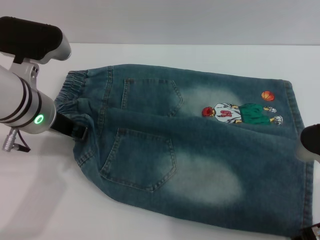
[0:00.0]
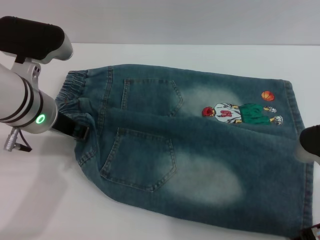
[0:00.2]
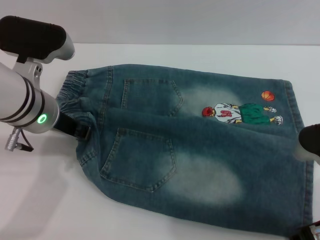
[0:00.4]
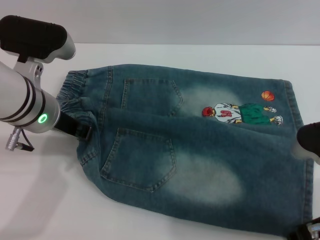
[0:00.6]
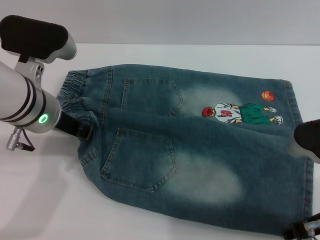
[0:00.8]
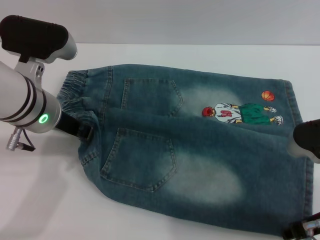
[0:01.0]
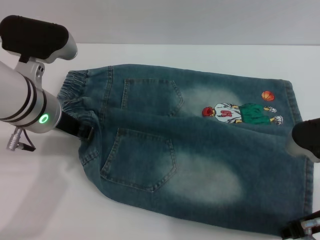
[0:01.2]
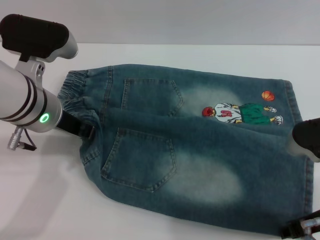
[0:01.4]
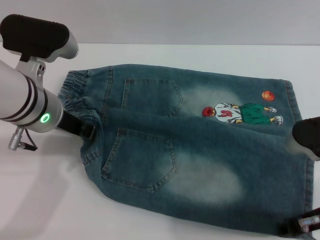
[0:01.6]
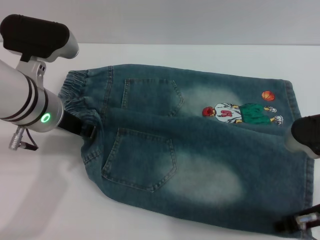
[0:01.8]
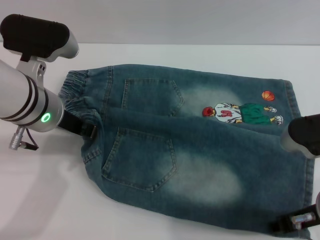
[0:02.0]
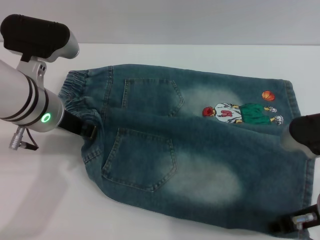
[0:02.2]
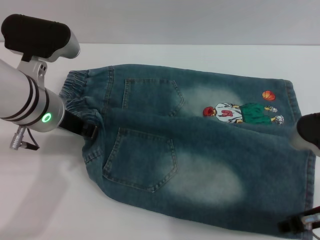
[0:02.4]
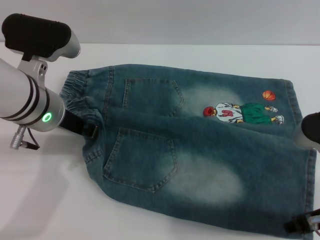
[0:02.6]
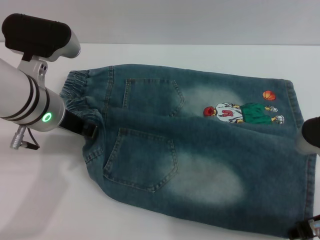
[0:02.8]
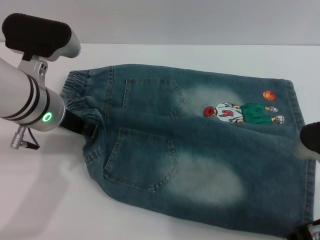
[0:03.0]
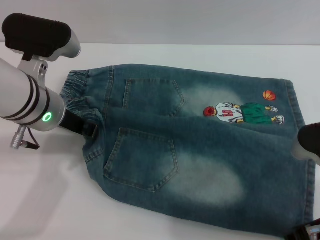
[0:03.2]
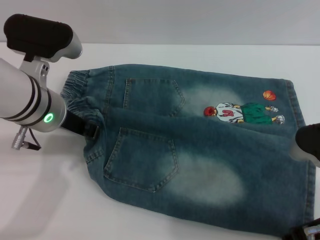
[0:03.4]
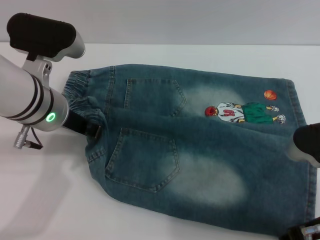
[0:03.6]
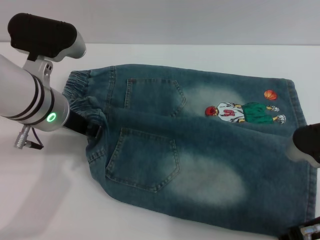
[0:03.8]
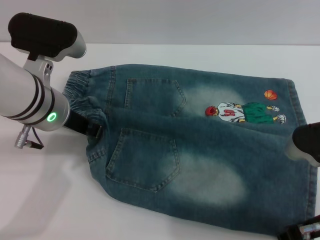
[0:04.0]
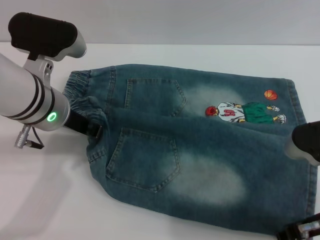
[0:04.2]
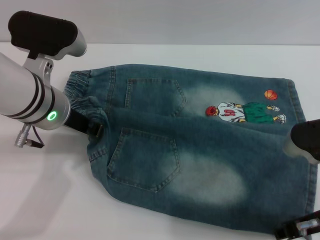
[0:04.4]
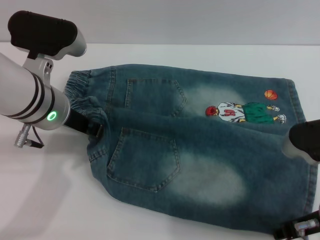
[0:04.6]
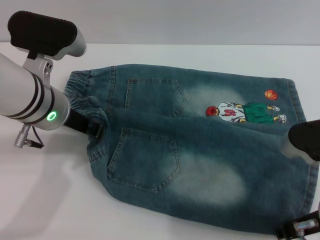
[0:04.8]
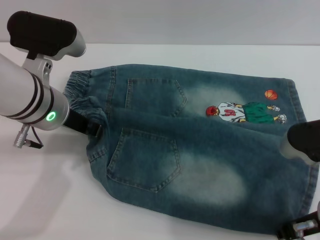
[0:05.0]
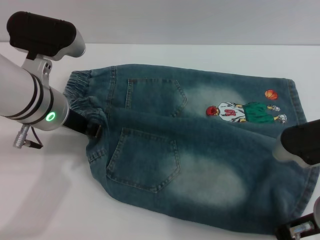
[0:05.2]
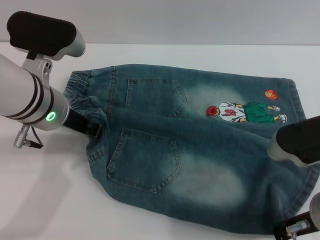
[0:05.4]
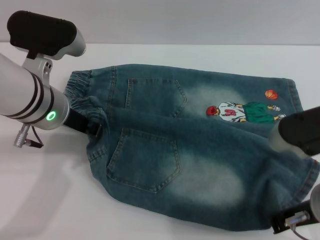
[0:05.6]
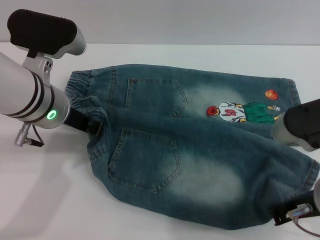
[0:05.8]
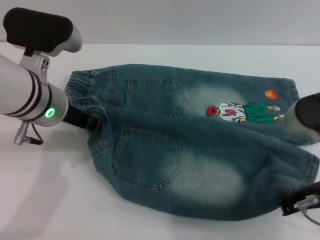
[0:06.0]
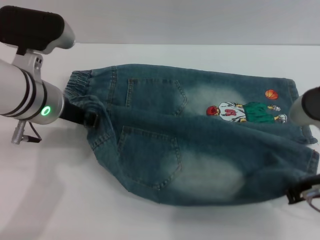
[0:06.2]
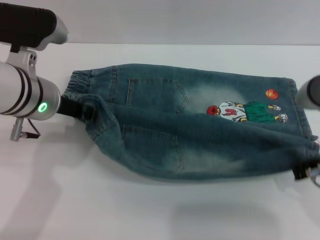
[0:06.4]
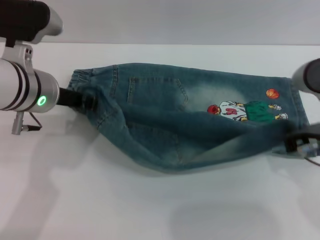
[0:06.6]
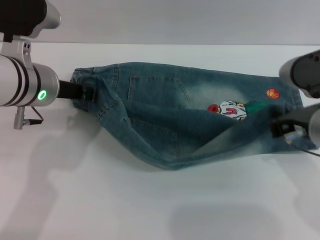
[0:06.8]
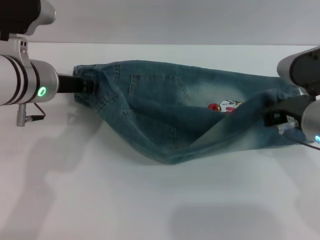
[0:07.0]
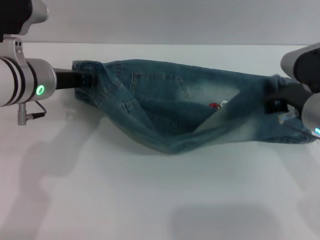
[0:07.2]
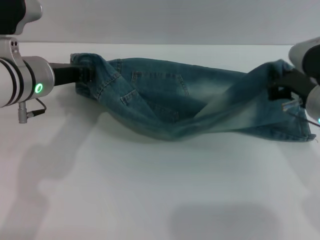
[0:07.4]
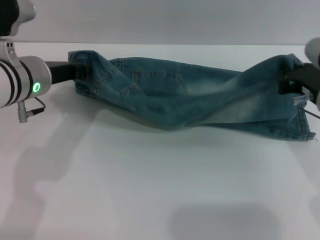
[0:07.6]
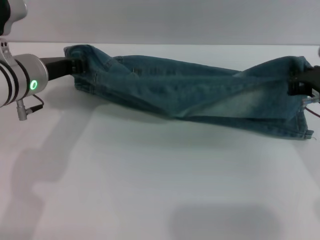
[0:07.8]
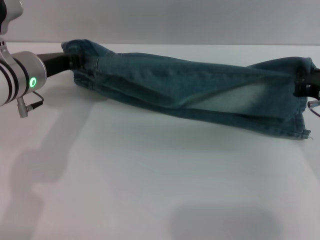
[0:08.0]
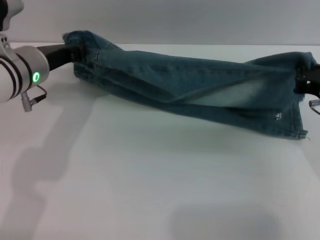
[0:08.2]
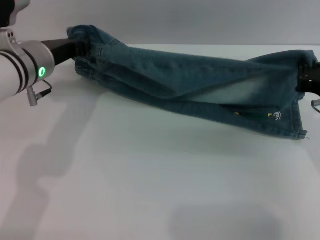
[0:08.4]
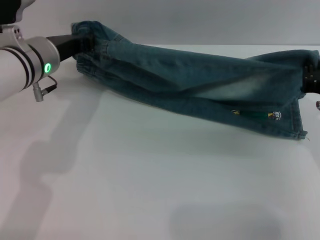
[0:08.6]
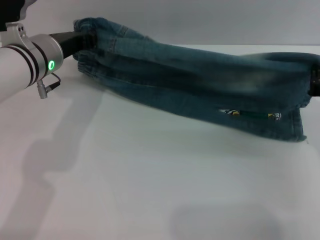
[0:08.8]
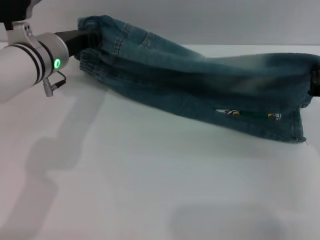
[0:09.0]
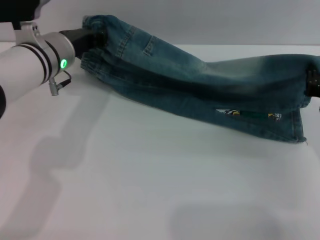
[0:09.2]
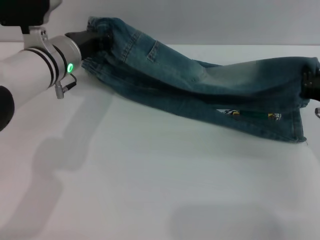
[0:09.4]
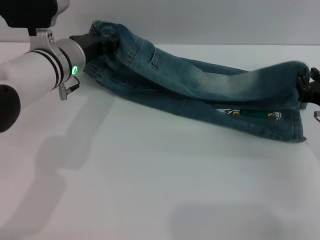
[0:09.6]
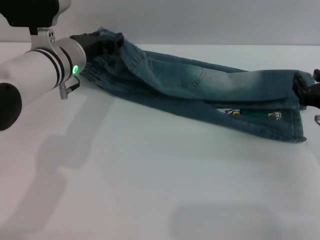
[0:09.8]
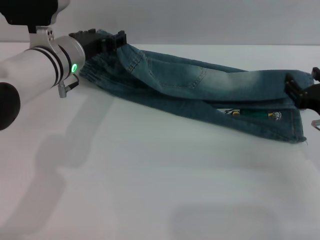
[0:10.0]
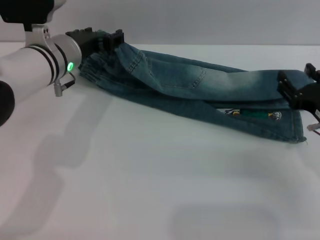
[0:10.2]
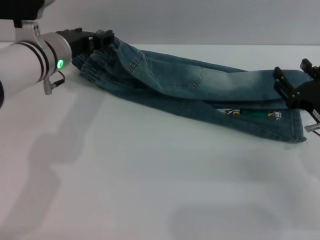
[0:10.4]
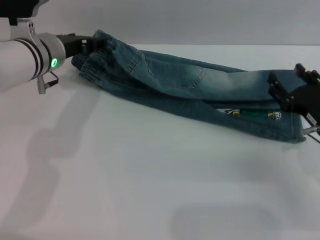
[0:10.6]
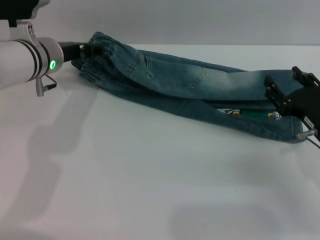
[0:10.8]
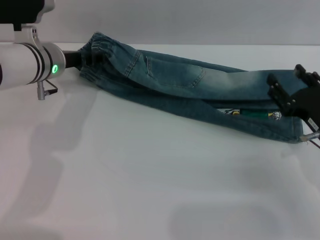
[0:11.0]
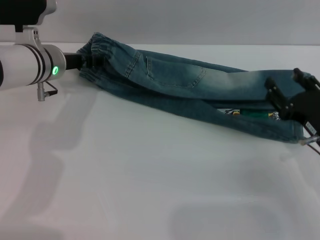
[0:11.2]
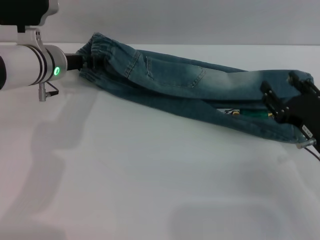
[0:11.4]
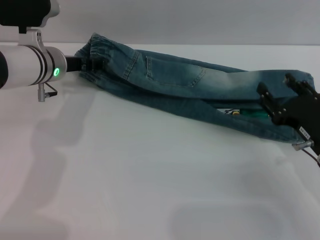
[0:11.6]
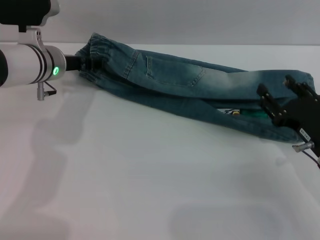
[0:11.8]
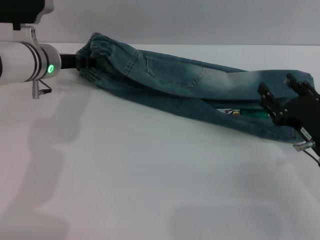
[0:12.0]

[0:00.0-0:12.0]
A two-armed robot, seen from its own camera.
0:00.0 to 0:01.6: Both grippers stay about where they are.
0:01.6 to 0:03.0: The grippers make only small movements.
0:03.0 to 0:04.4: Both grippers stay about where they are.
0:04.4 to 0:06.0: The right gripper closes its fingers.
0:06.0 to 0:07.6: The right gripper is displaced forward by roughly 10 cm.
0:07.6 to 0:09.0: The right gripper heads to the right, covering some 5 cm.
0:09.0 to 0:10.4: The right gripper opens its fingers. The left gripper opens its fingers.
0:10.4 to 0:12.0: There are only small adjustments of the grippers.

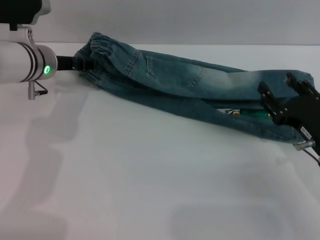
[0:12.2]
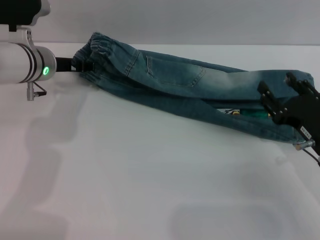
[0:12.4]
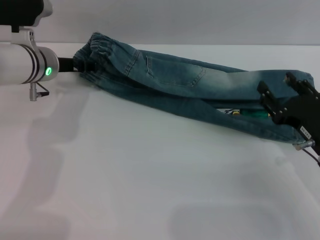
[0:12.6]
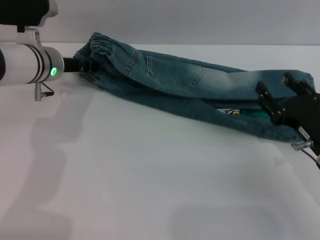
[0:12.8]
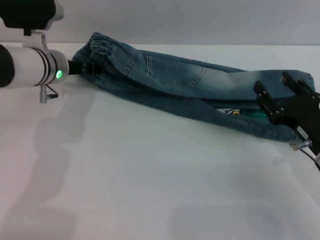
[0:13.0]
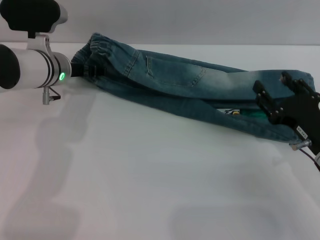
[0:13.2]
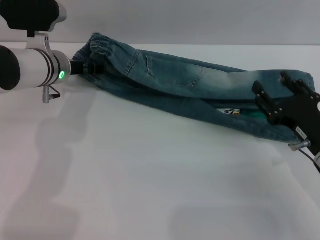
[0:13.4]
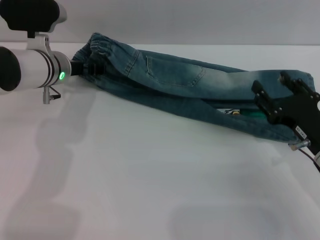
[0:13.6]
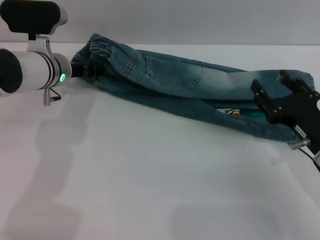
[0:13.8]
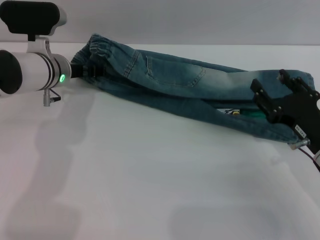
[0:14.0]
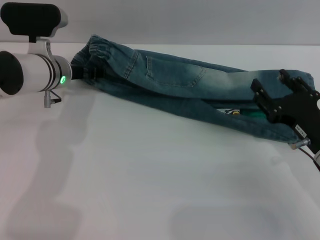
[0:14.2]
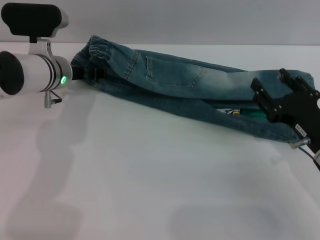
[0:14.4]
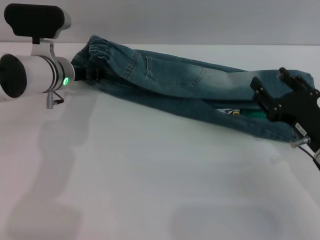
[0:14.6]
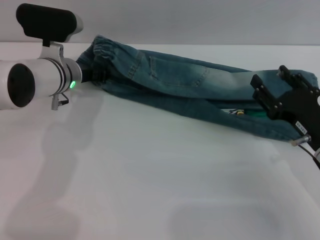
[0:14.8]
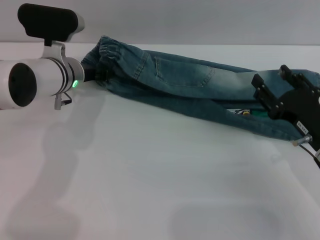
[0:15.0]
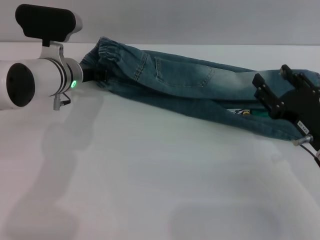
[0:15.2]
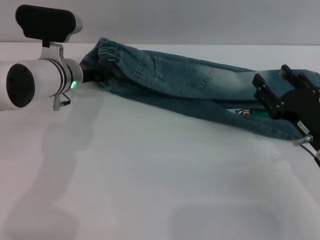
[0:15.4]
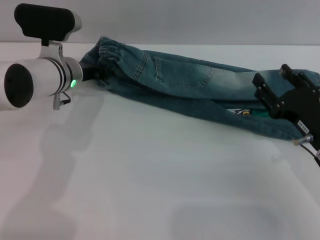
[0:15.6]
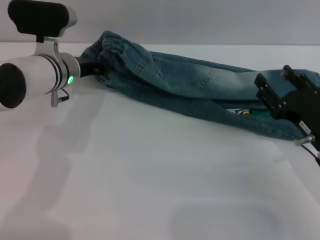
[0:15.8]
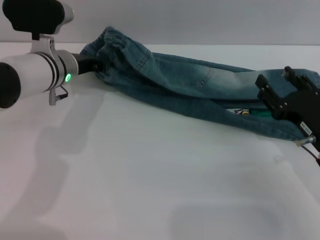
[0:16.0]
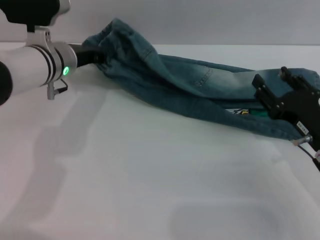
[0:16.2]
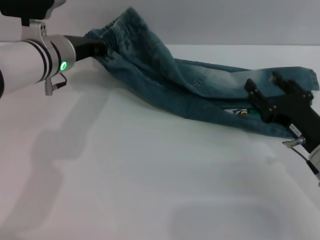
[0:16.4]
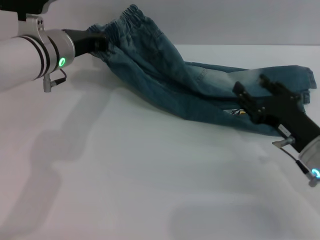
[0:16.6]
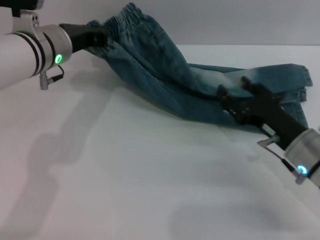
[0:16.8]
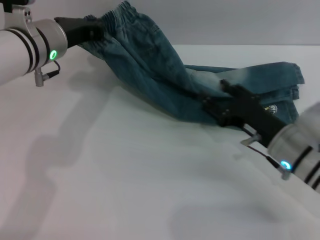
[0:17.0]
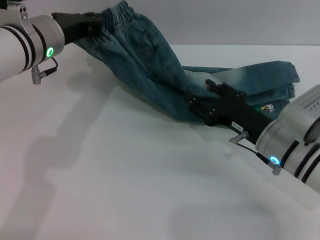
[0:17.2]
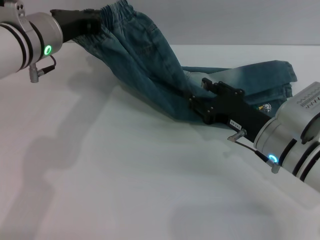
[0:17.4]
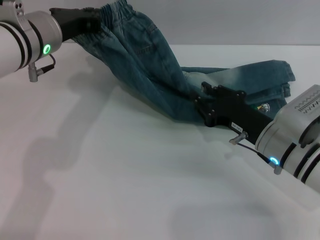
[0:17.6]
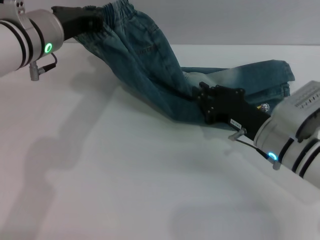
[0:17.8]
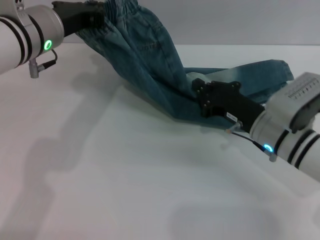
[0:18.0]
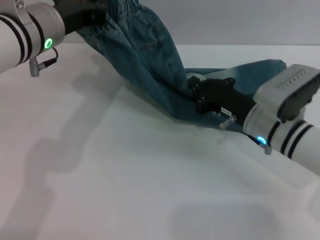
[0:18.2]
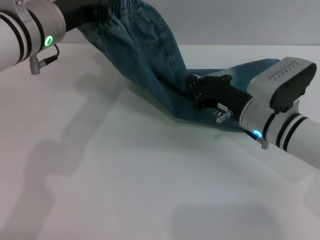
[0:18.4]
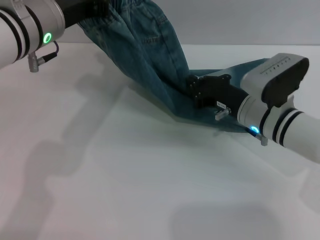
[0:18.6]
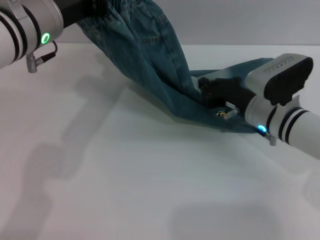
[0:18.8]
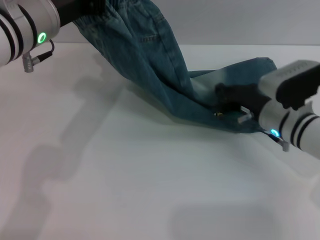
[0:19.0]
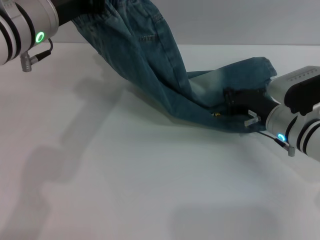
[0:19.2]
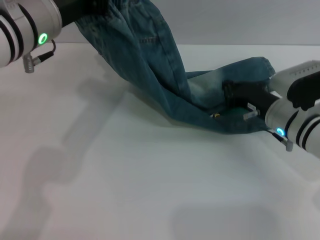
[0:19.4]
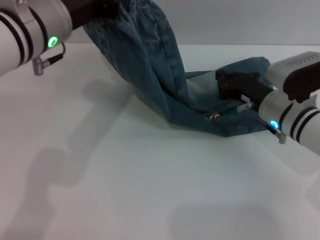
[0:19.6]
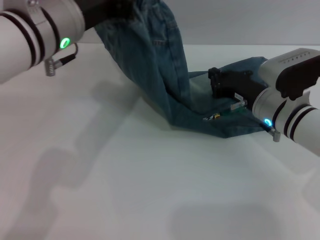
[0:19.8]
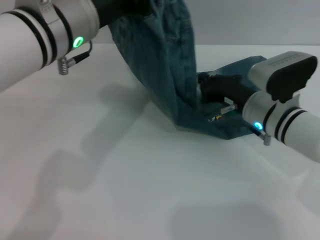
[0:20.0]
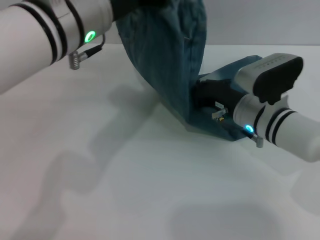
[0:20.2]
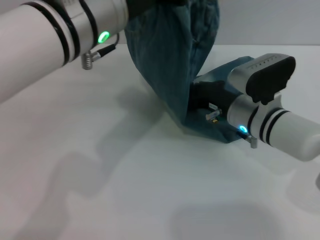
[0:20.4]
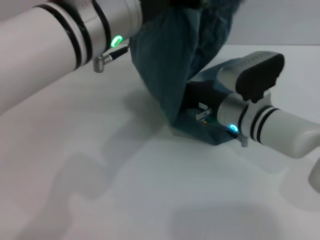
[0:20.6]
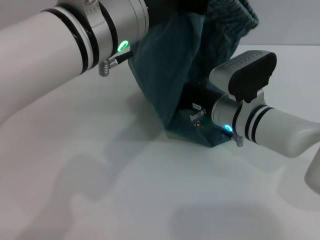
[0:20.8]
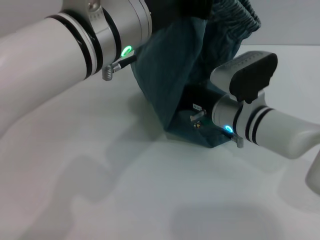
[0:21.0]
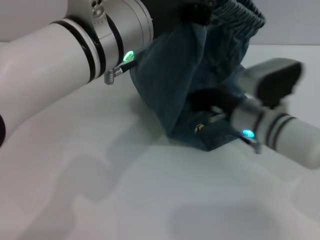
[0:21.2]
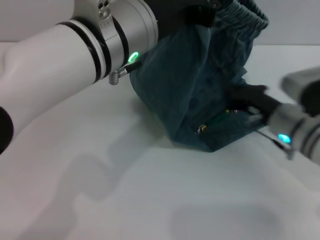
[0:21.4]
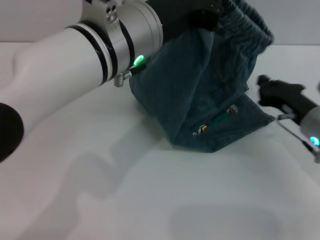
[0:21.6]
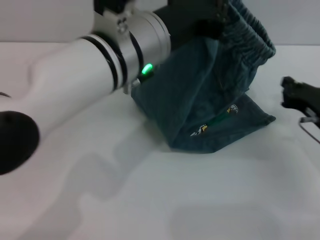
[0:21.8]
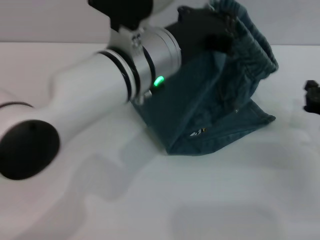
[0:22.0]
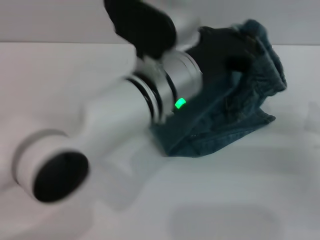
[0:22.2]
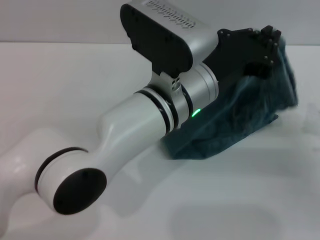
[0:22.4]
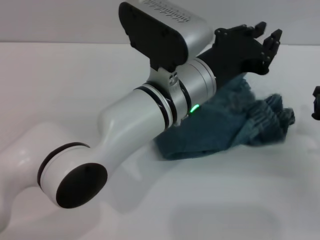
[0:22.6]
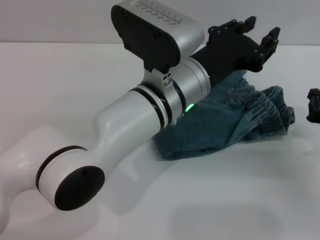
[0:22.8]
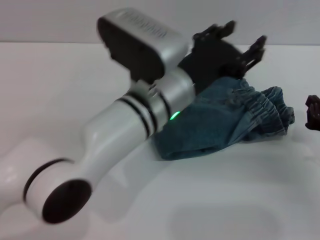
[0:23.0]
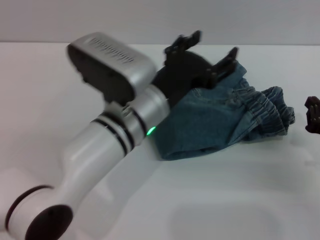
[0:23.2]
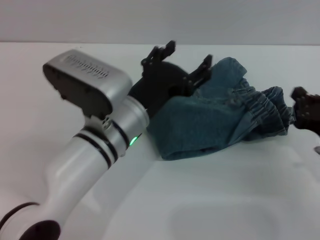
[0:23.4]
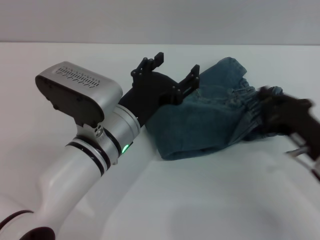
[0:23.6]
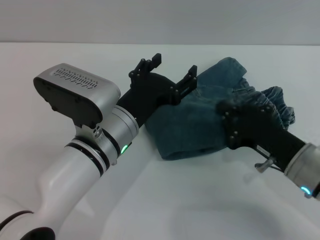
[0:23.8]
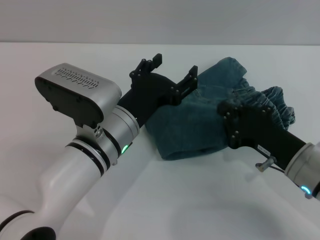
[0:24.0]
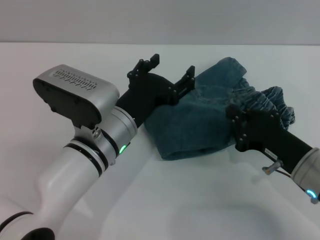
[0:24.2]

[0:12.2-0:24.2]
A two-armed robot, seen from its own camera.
0:12.2 to 0:13.8: The grippers move only a little.
0:13.8 to 0:15.2: The left gripper closes.
0:15.2 to 0:16.6: The left gripper goes roughly 5 cm upward.
0:16.6 to 0:18.2: The left gripper heads upward, covering some 5 cm, while the right gripper is displaced forward and to the left by some 10 cm, and closes.
0:18.2 to 0:19.8: The left gripper ends up some 5 cm from where it was.
0:19.8 to 0:21.2: The left gripper shifts roughly 5 cm to the right.
0:21.2 to 0:22.6: The right gripper is displaced to the right and backward by about 15 cm. Meanwhile the left gripper heads downward and to the right, covering approximately 10 cm.
0:22.6 to 0:24.2: The left gripper moves to the left and downward, roughly 10 cm, and opens up. Meanwhile the right gripper goes approximately 10 cm to the left.
